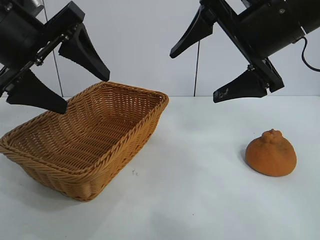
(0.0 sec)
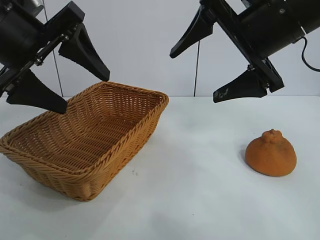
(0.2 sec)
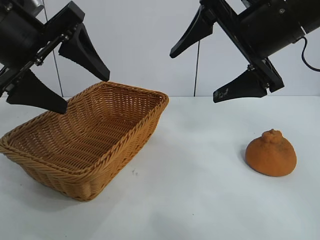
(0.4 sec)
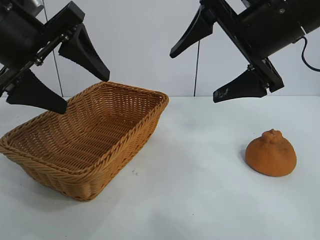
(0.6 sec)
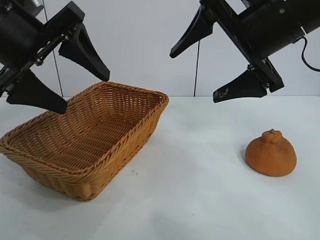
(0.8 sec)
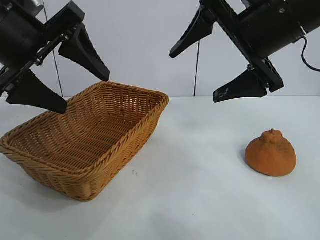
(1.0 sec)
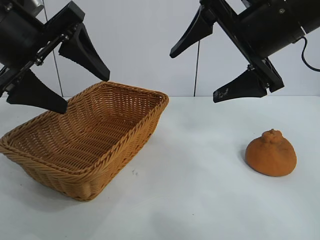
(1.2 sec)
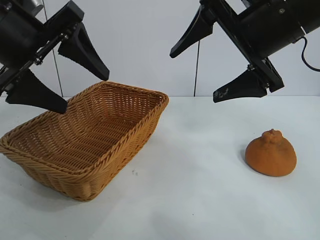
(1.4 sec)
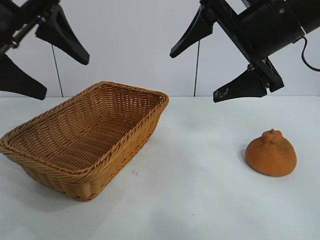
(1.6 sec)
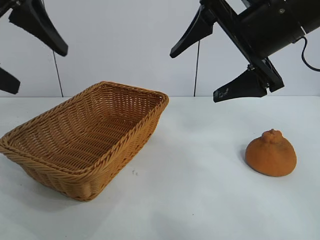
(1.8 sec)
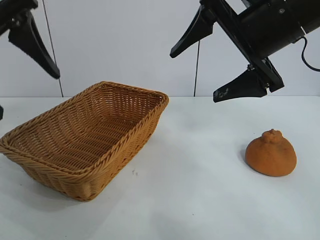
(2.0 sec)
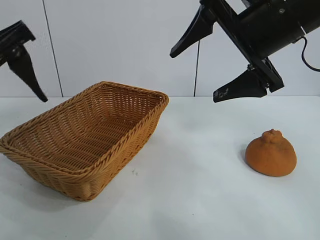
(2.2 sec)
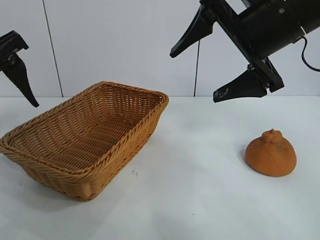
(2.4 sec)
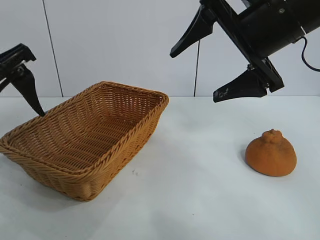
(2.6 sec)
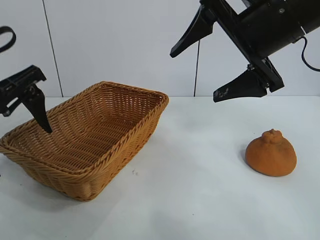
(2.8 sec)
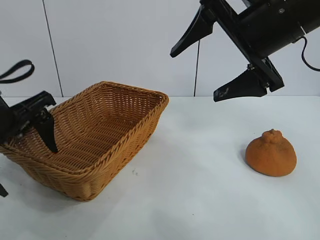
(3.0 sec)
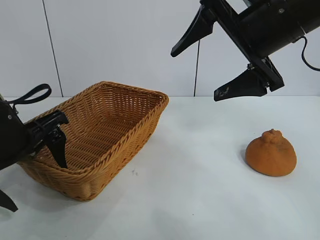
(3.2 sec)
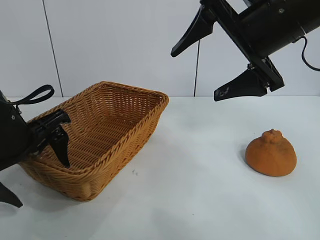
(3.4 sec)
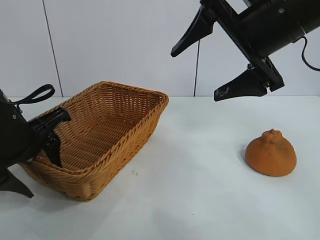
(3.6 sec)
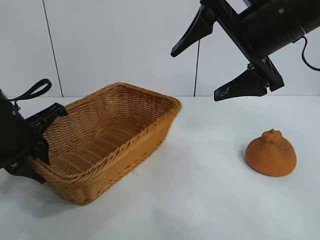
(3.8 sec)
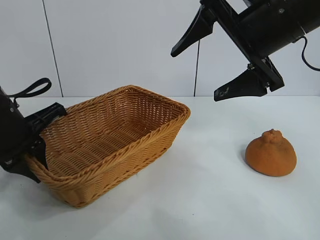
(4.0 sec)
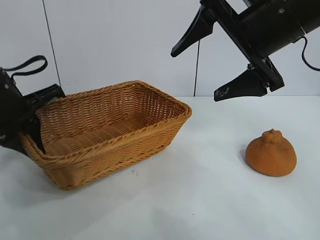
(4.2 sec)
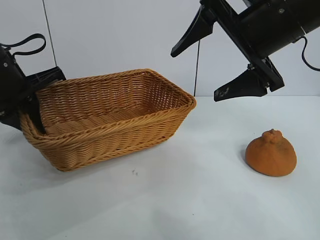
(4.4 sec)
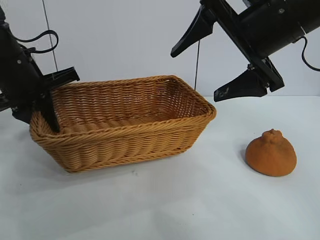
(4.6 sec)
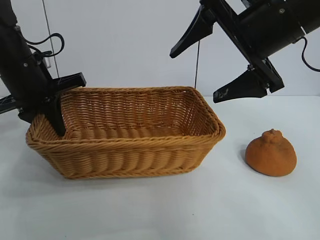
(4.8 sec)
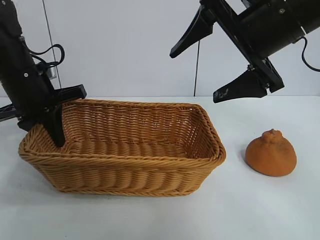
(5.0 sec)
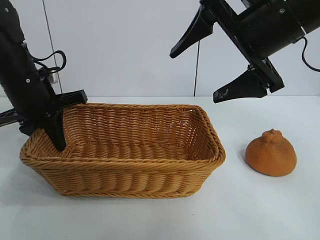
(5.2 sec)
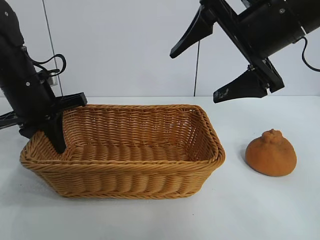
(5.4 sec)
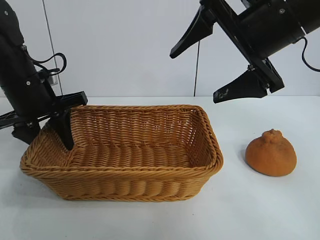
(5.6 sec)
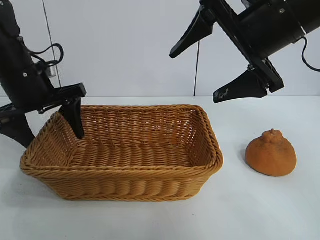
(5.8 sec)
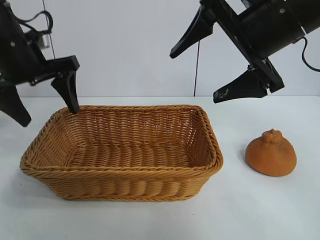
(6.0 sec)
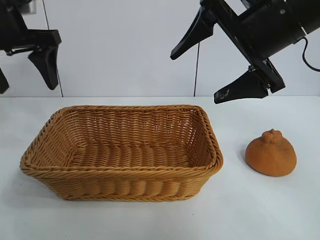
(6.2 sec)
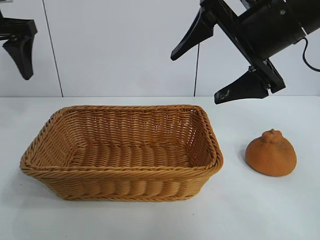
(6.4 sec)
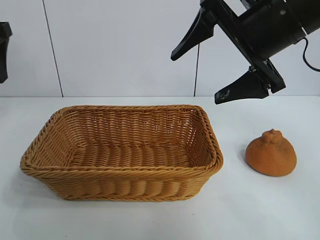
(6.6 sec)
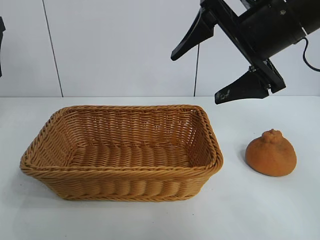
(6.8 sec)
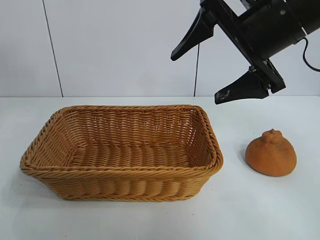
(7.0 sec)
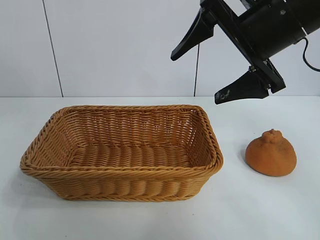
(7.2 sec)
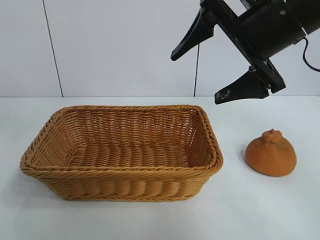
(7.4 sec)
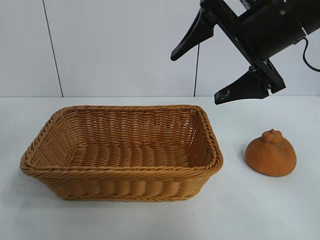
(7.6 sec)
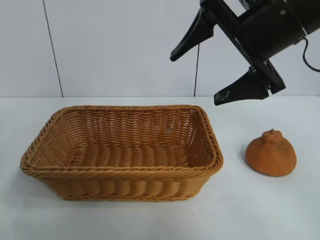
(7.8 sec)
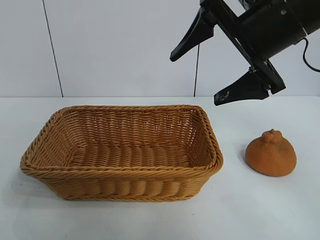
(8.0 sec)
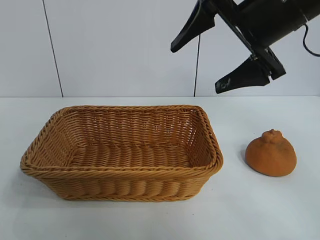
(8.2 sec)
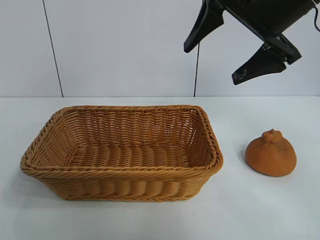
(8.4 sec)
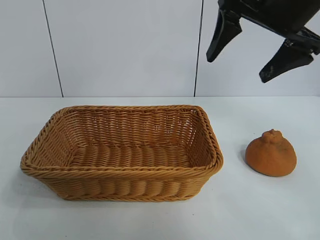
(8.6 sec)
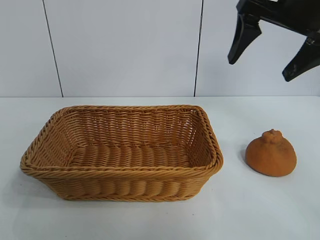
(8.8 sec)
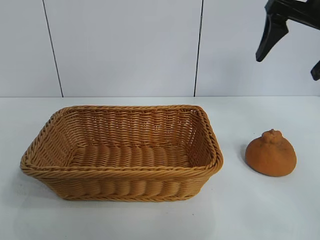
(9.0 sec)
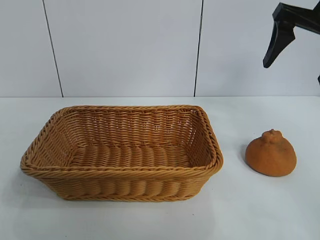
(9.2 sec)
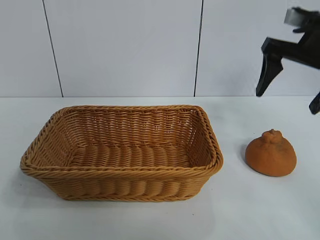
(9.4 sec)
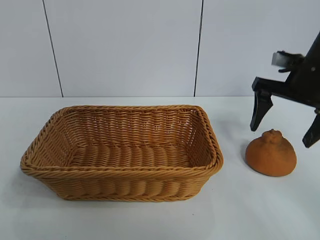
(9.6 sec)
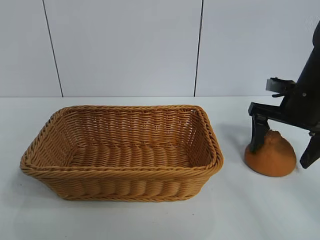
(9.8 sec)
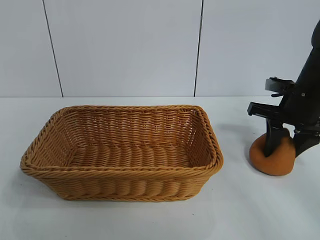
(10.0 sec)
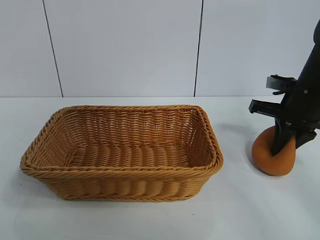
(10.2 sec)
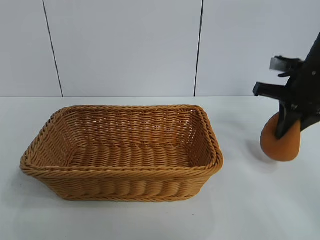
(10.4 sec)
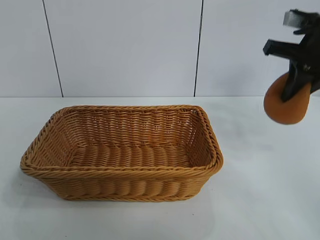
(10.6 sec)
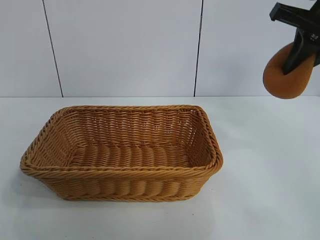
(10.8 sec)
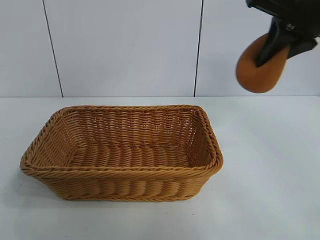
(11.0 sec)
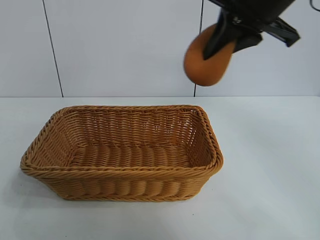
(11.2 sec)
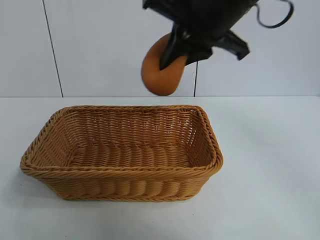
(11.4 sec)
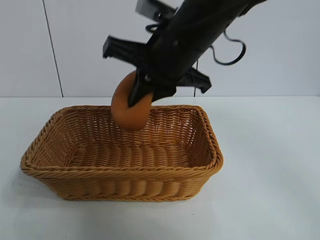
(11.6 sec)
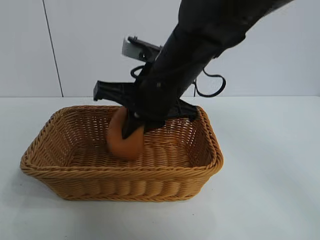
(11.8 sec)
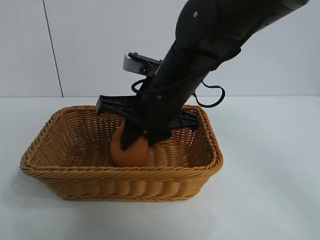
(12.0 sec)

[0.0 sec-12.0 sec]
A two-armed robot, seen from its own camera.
Task of the whole recording: pick up the orange and put it into the basket.
Step, 1.4 sec to 3.8 sec: Grasp the basket with left gripper.
Step, 4.0 sec to 5.6 sec: Place the basket in the center of view with left gripper.
Step, 5.8 sec to 9.8 sec: Grasp the orange with right gripper.

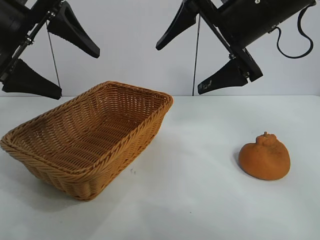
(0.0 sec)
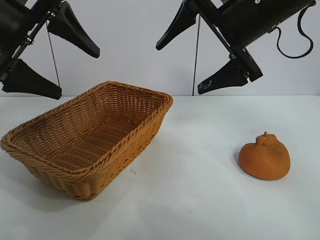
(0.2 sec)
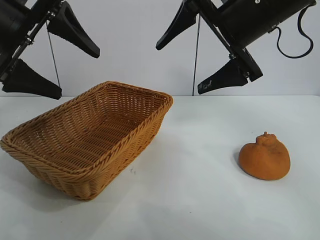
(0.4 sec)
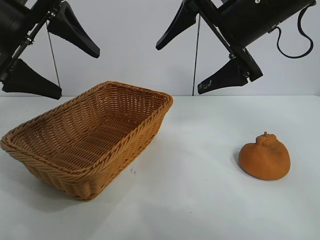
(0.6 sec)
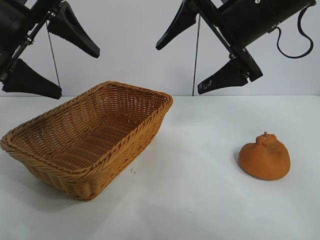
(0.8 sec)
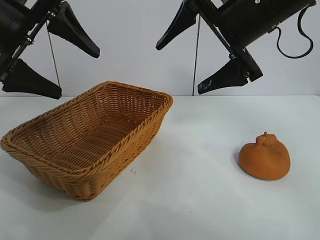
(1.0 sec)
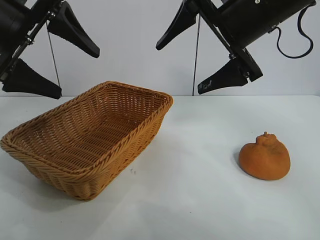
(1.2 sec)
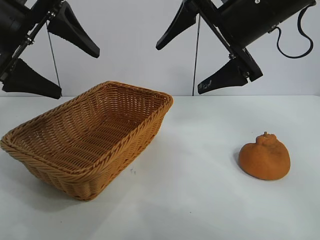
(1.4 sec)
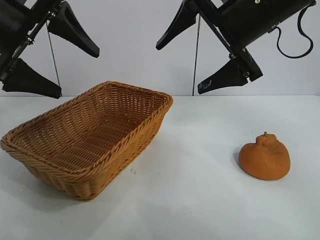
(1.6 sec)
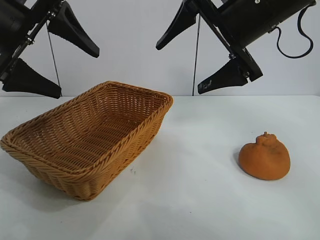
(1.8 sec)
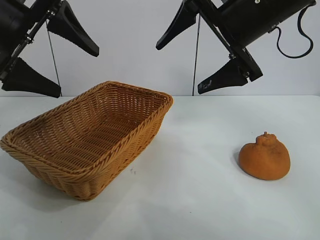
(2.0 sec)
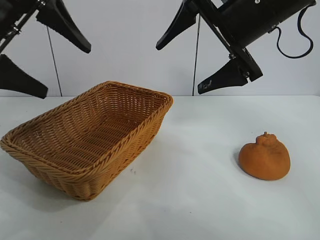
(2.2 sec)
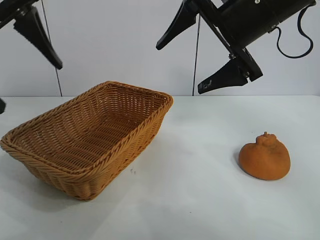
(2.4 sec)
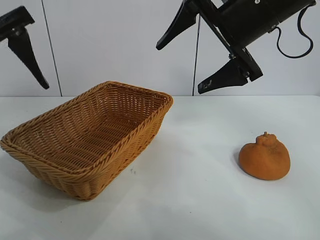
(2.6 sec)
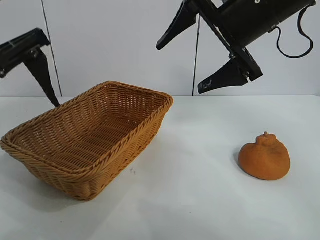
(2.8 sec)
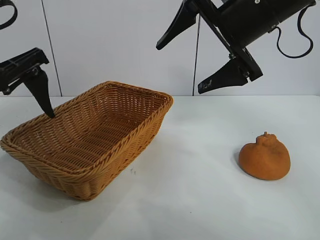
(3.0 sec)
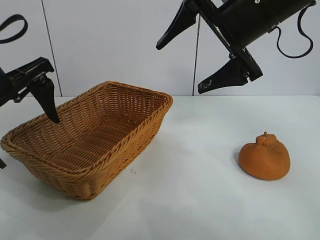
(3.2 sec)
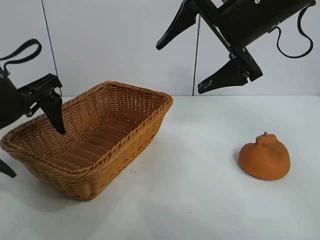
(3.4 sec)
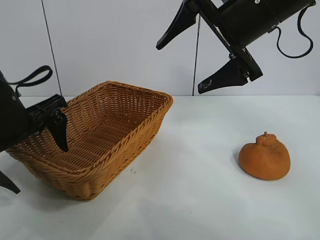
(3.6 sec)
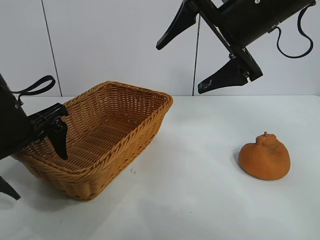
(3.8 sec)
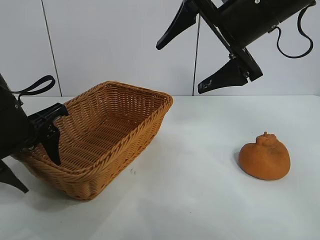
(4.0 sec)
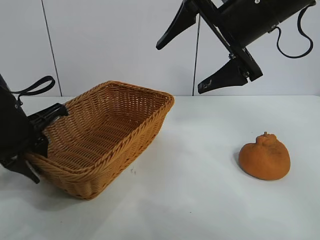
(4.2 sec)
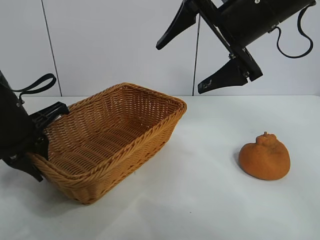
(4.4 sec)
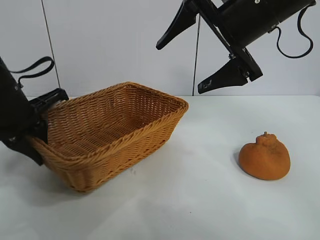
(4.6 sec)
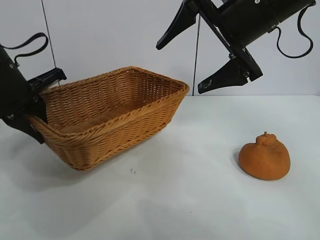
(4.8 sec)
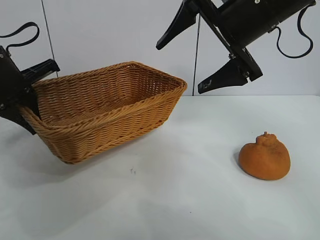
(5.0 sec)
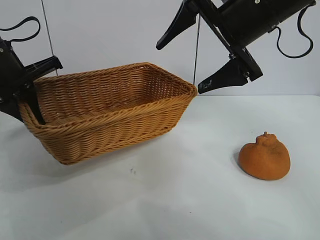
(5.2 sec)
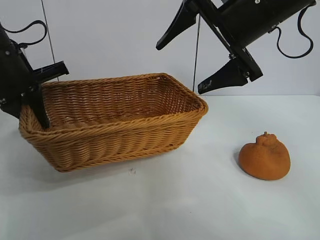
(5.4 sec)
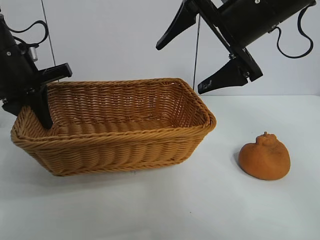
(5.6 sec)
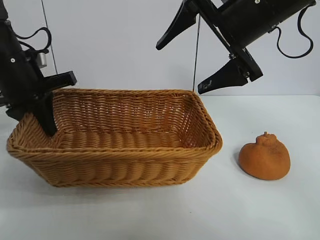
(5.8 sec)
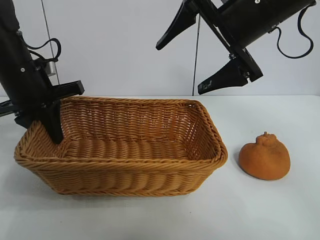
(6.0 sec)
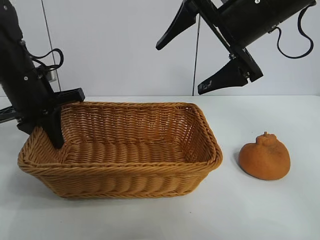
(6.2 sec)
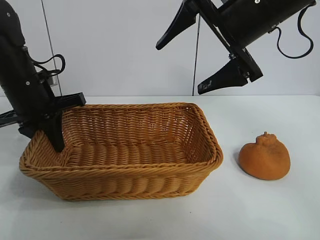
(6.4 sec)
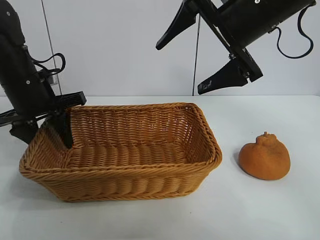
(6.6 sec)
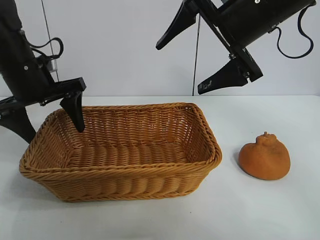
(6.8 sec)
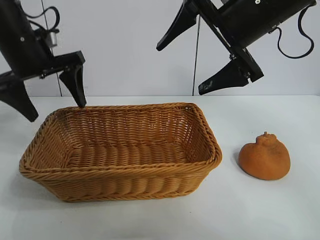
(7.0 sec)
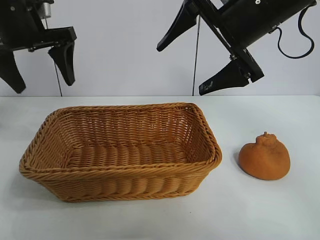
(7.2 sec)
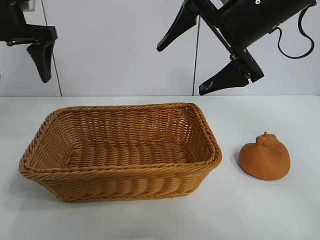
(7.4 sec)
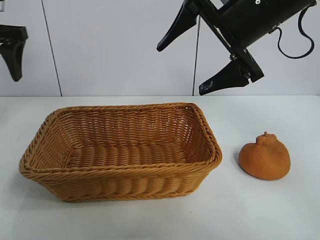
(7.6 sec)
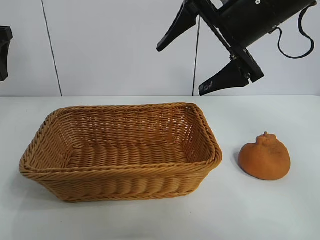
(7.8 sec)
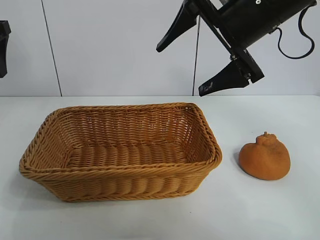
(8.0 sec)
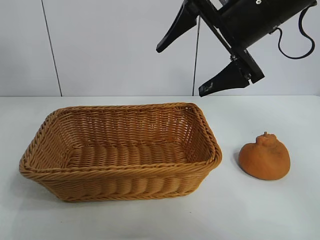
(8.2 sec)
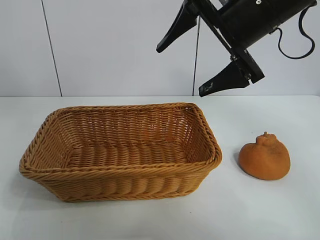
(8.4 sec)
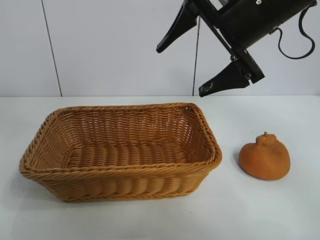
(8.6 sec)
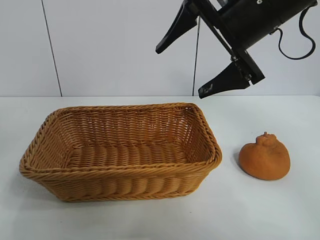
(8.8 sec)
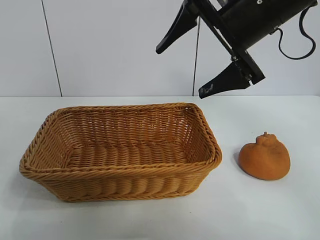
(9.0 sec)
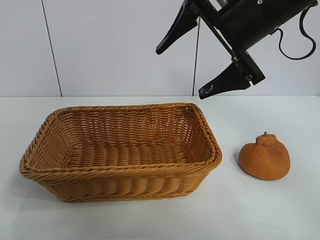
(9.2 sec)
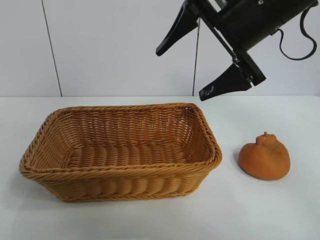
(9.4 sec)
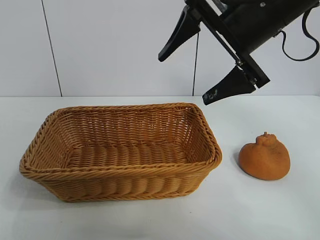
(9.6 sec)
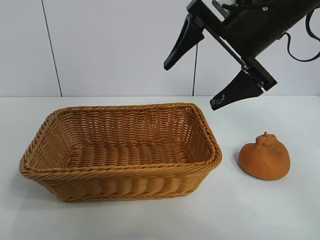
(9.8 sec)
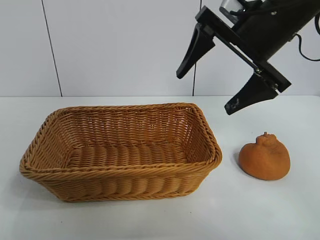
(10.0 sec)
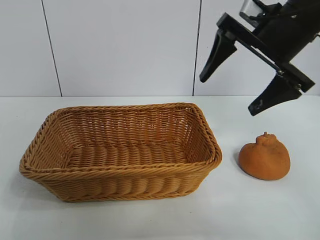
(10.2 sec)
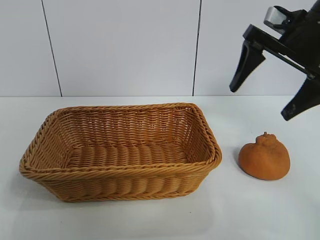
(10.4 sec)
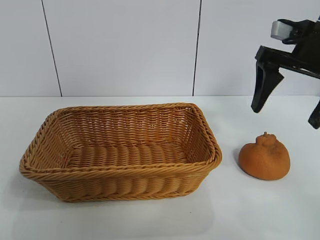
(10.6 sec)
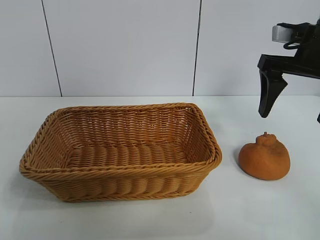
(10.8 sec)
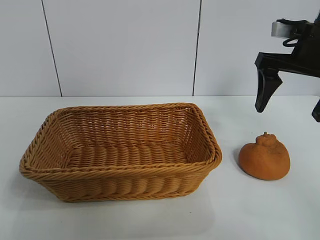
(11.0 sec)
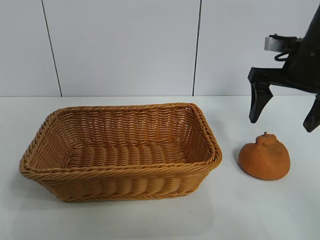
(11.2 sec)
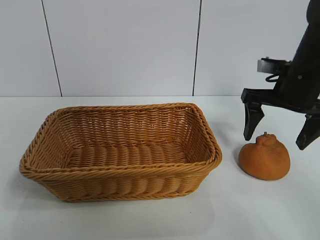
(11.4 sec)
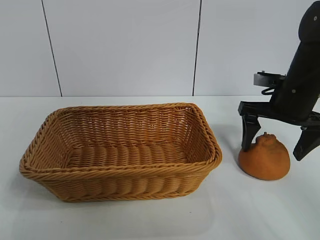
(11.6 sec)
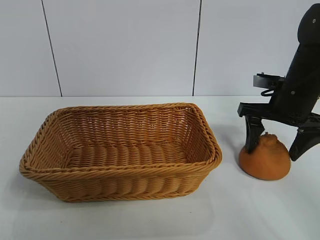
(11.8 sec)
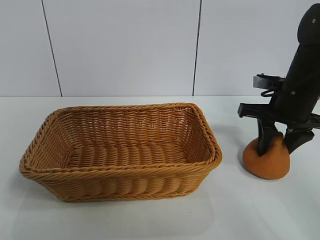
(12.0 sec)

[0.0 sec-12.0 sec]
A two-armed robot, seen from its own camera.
Task of the whole recording: pick up the orange and put it into the basket.
Step, 2.0 sec to 4.2 sec: Grasp the basket with left gripper.
Step, 4.4 sec to 6.6 sec: Place the basket in the center of view with left gripper.
